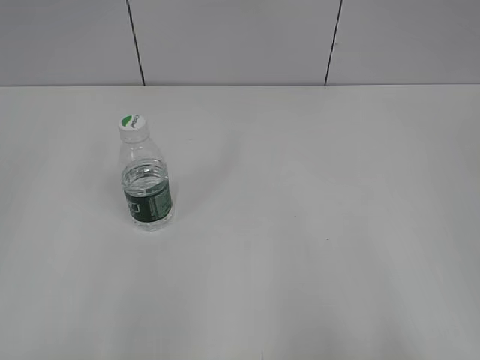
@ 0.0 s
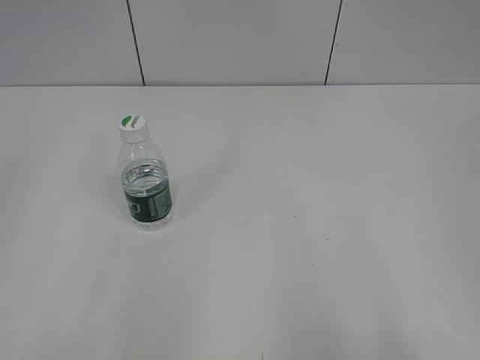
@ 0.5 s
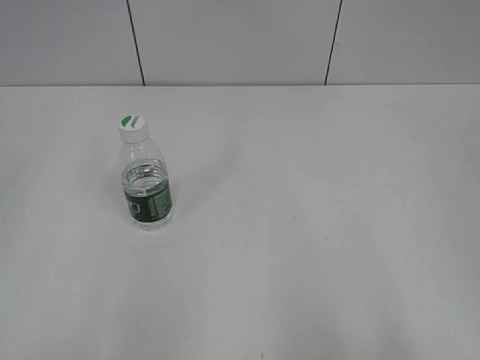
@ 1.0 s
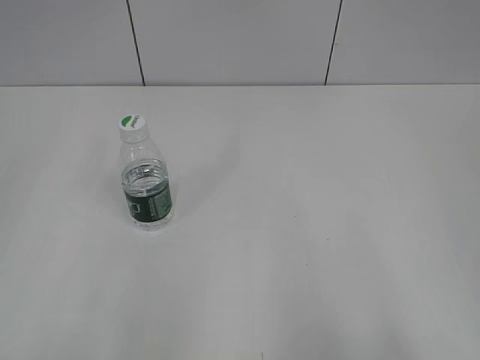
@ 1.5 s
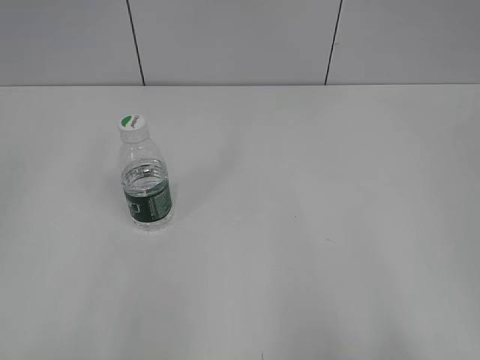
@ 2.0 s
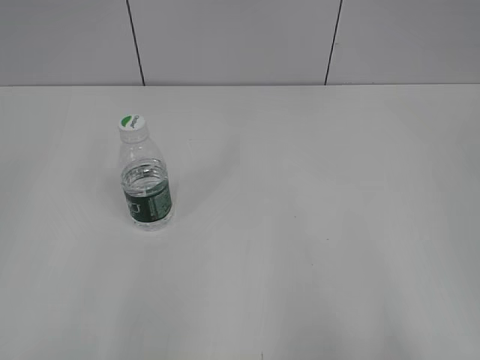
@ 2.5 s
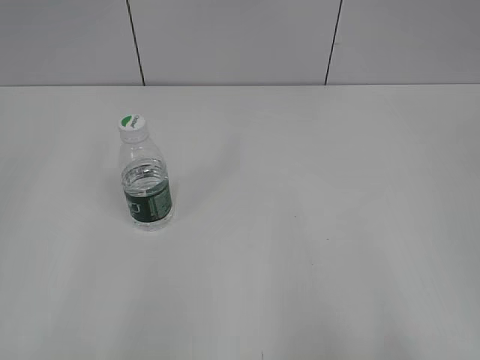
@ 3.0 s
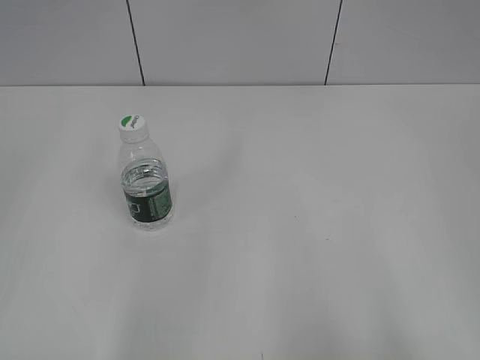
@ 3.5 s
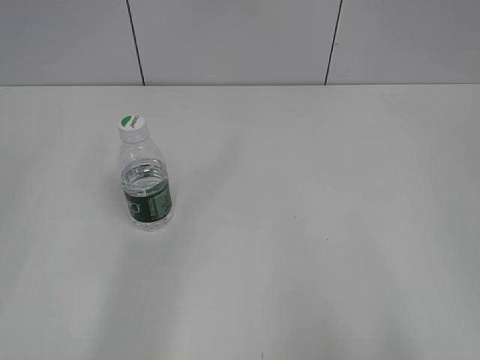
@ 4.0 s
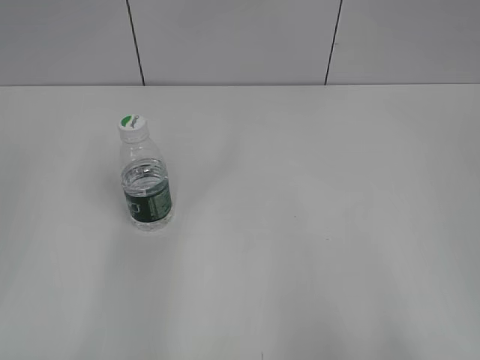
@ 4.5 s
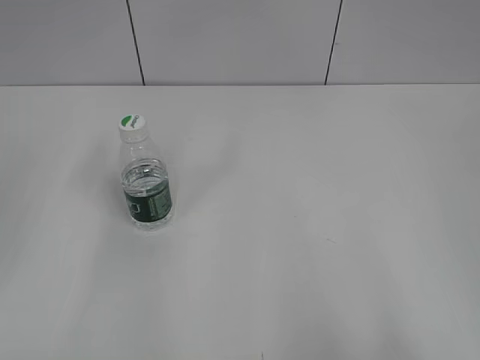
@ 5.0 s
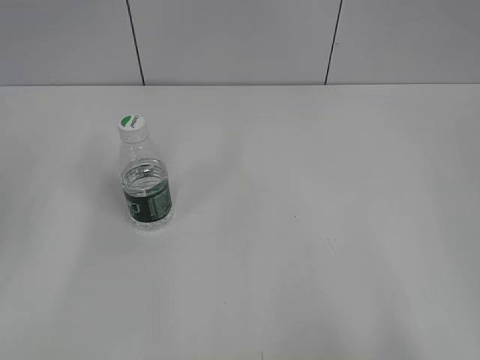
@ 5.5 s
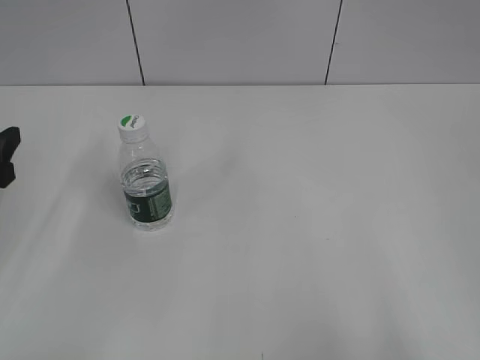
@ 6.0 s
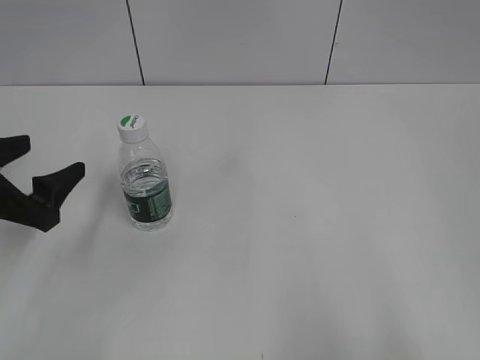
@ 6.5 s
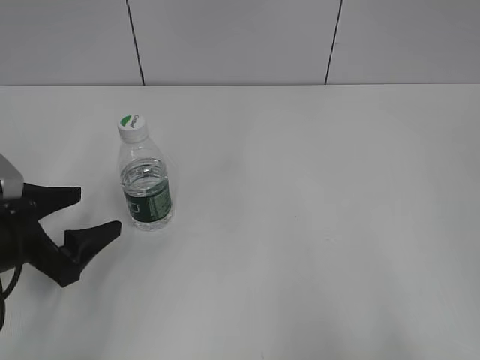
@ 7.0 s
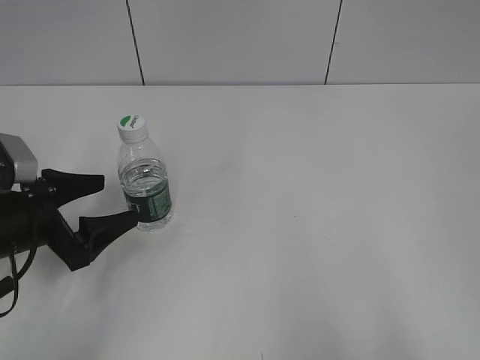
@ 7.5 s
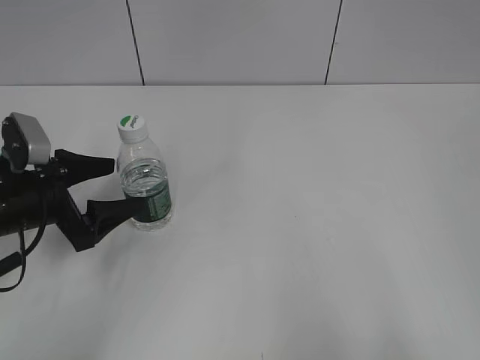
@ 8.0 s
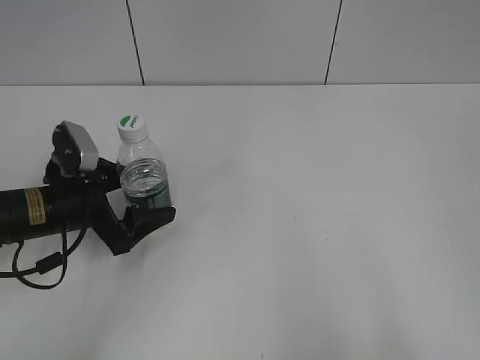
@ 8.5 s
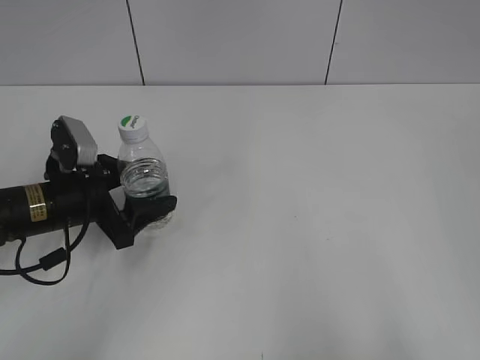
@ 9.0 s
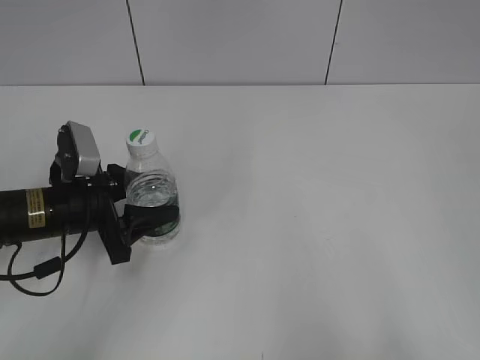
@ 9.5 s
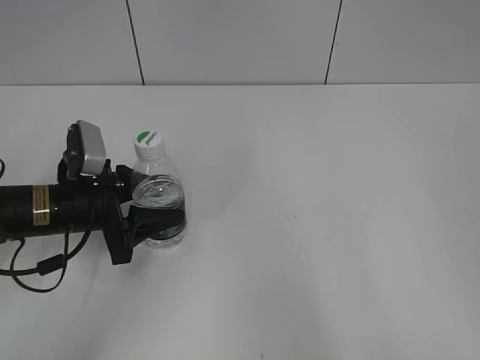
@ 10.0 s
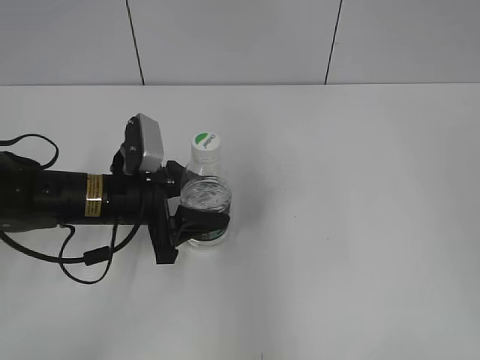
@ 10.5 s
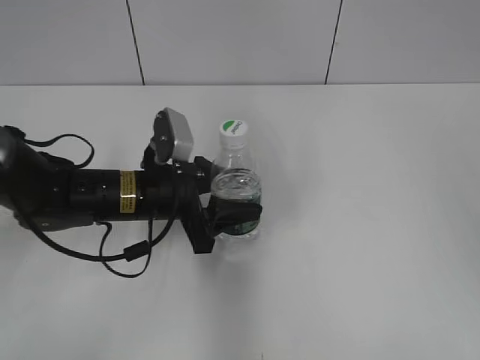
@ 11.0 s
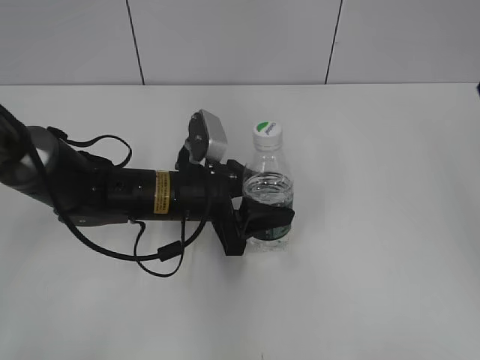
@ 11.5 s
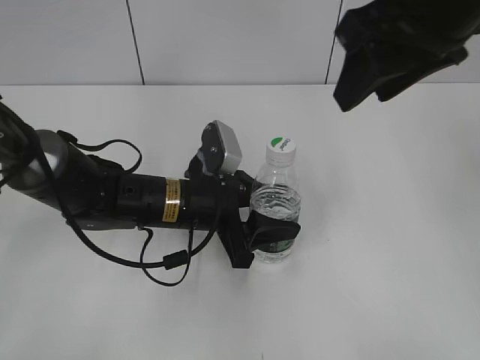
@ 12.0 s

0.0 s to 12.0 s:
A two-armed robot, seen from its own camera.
Step, 0.0 to 9.0 s: Grasp the bottle and move it to the center of the table with the left gripper.
6.0 to 8.0 s: The left gripper shifts some 10 cm downward and to the right.
8.0 to 10.0 s: The left gripper closes up.
10.0 to 12.0 s: The right gripper heads forward and to the left, covering some 30 cm, and closes its fingers; the left gripper is displaced to the right by approximately 15 cm.

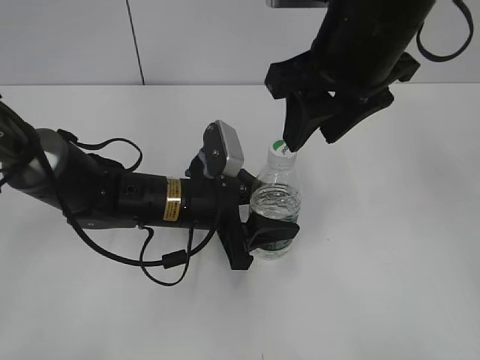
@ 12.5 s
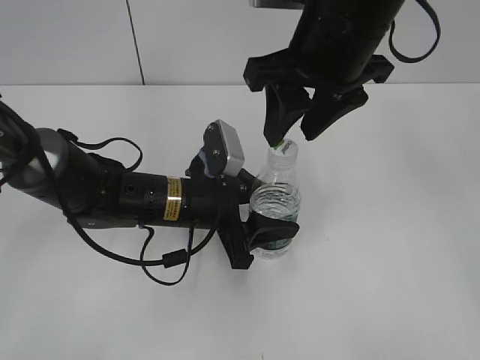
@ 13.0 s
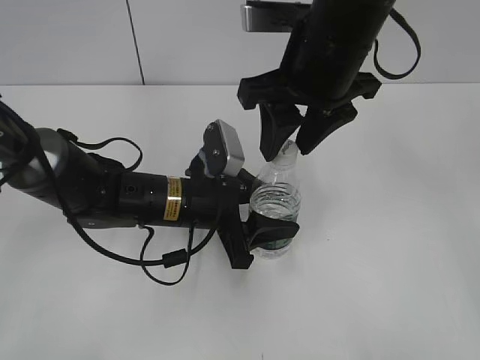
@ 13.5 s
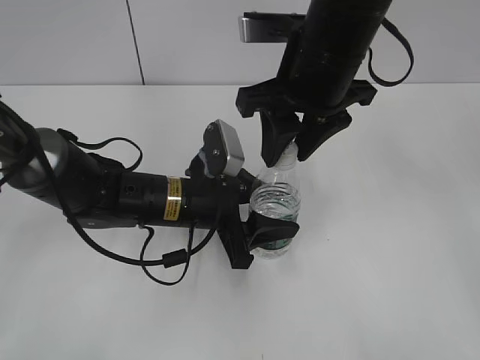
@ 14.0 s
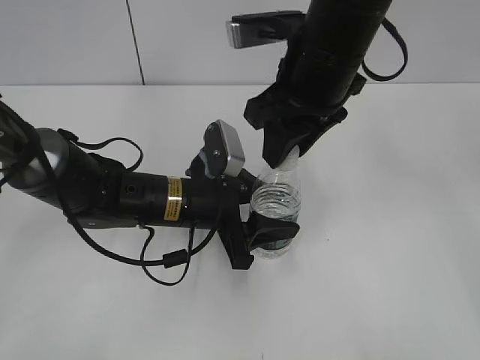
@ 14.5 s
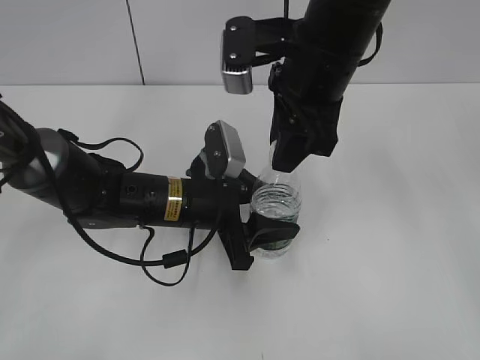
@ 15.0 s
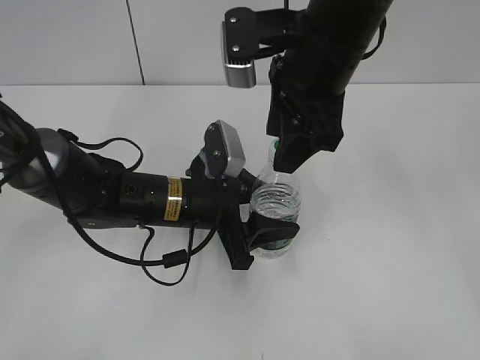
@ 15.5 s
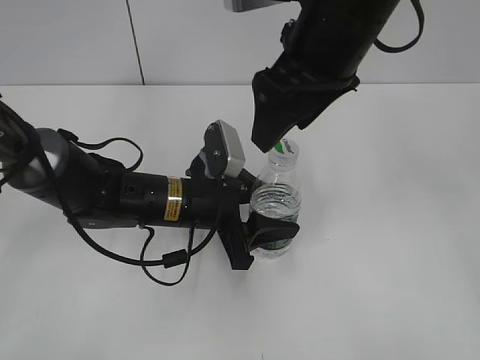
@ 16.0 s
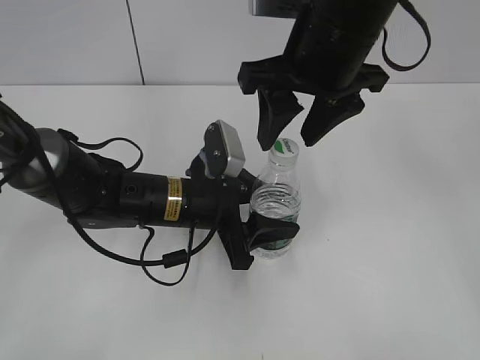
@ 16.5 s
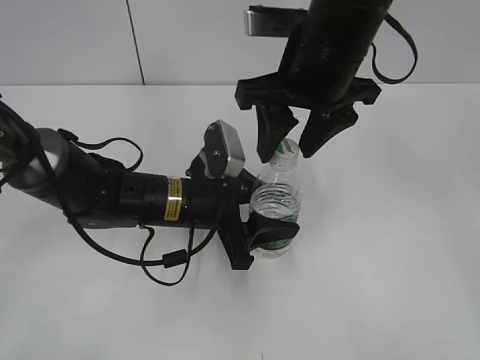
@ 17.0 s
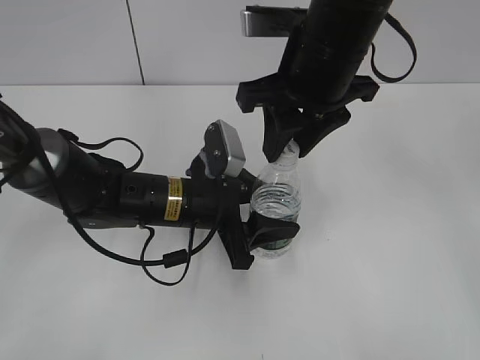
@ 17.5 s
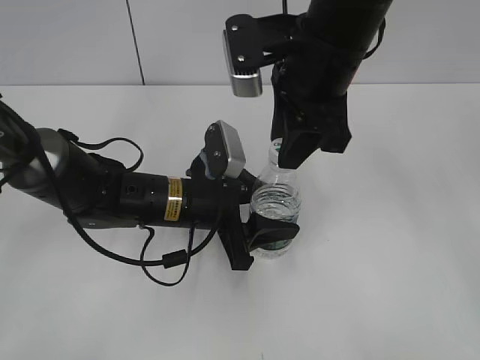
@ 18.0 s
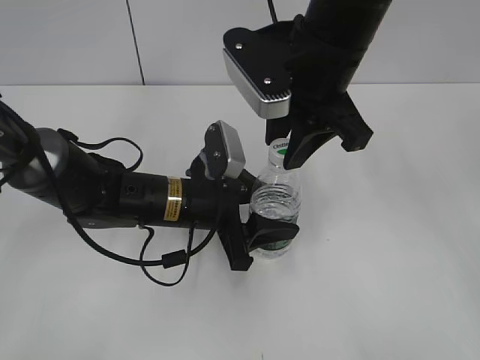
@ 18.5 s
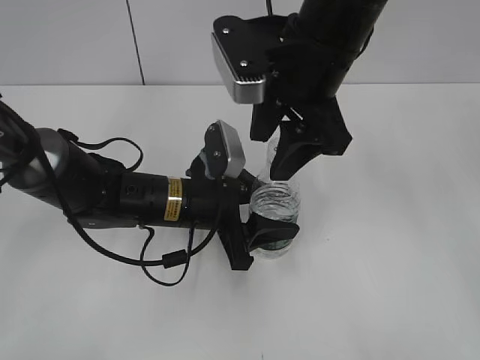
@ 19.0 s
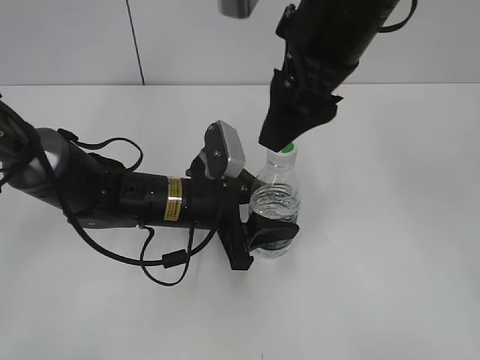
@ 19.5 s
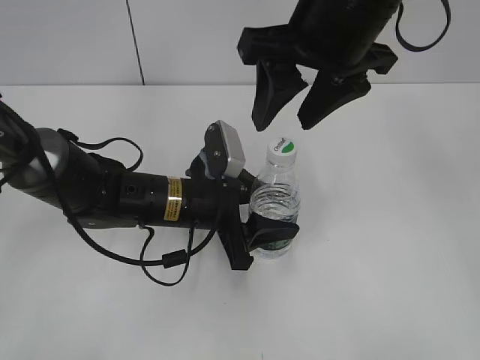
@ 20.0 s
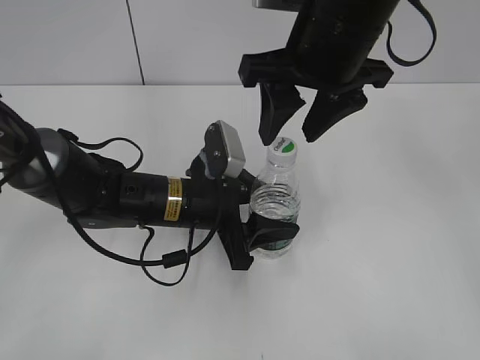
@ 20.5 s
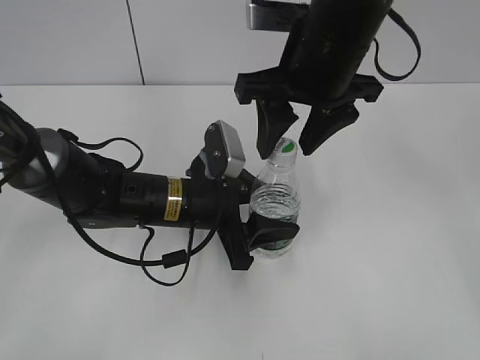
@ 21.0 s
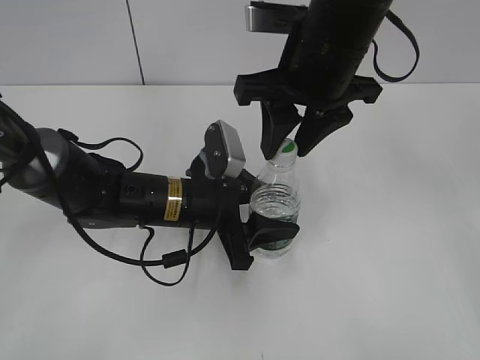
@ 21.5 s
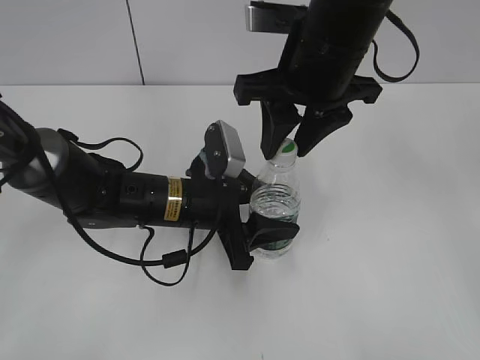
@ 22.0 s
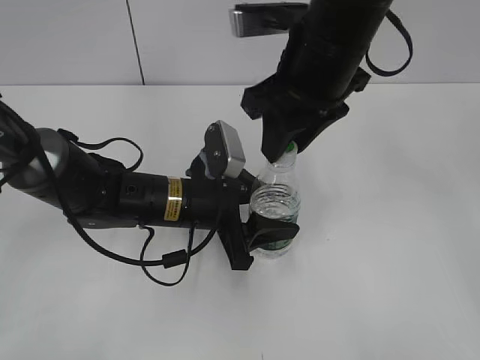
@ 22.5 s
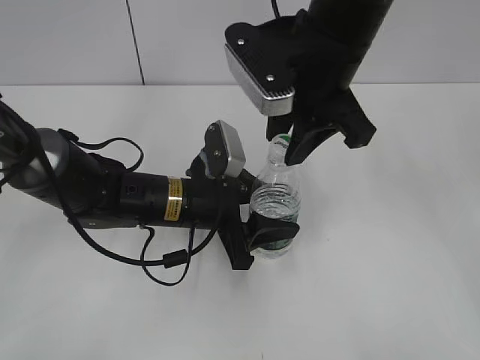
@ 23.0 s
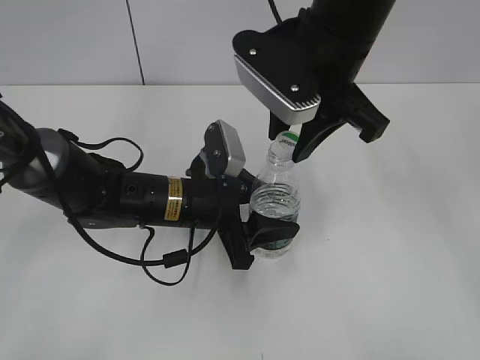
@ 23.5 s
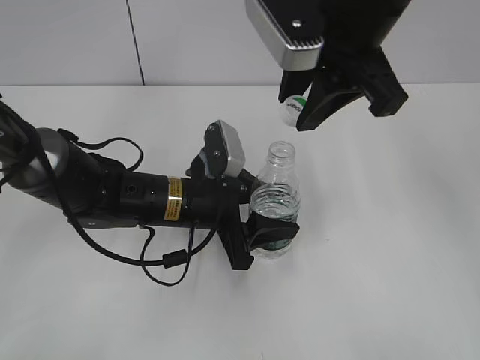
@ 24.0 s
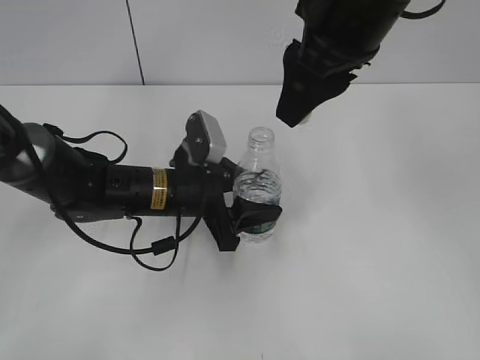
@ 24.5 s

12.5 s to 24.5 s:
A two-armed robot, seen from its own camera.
Step, 12.5 to 24.0 s: Unscrew the bottle cap with the right gripper while holding the bottle with the left gripper.
12.5 to 14.5 s: The right gripper shifts by some 5 cm.
14.5 to 16.5 s: The right gripper opens its fingers.
16.5 to 18.5 s: The right gripper closes.
18.5 to 20.5 s: The right gripper opens its fingers.
20.5 to 22.5 s: The right gripper closes.
22.5 to 24.5 s: The right gripper travels upward by roughly 5 cm.

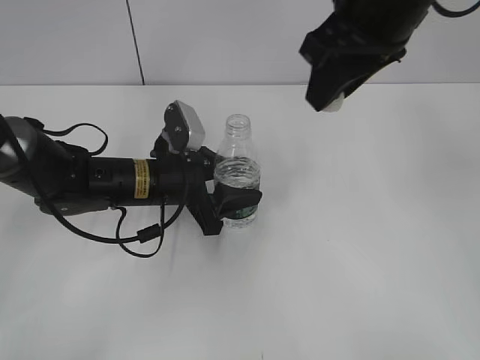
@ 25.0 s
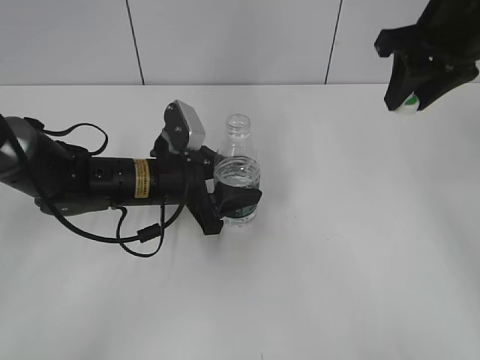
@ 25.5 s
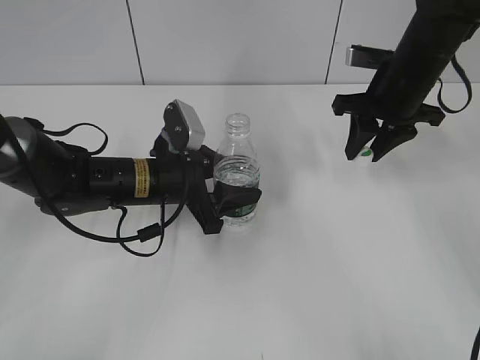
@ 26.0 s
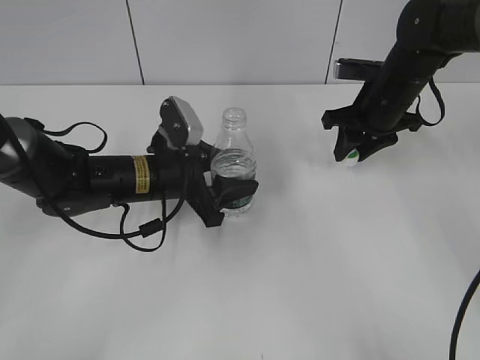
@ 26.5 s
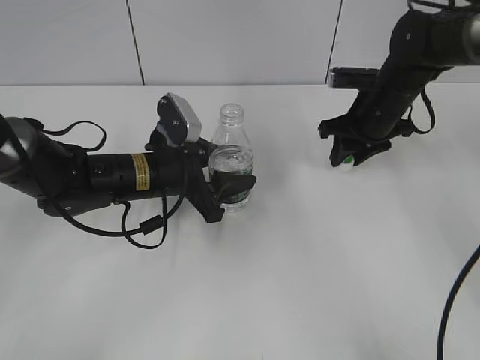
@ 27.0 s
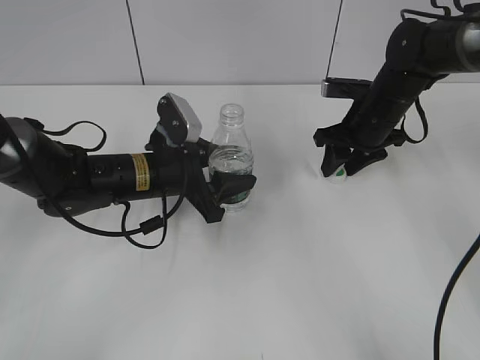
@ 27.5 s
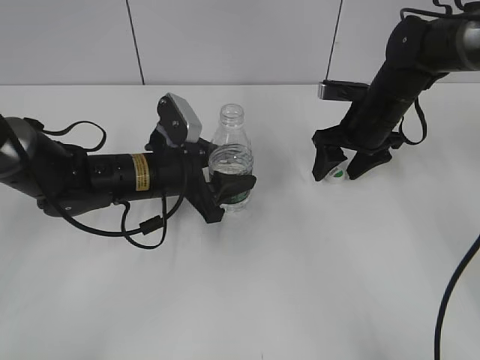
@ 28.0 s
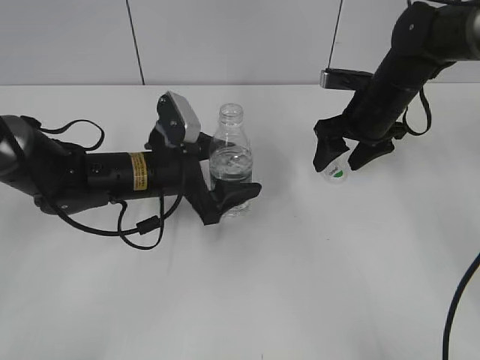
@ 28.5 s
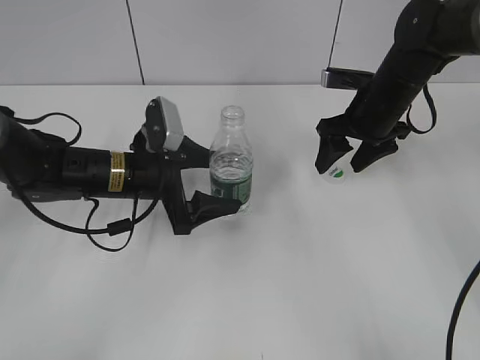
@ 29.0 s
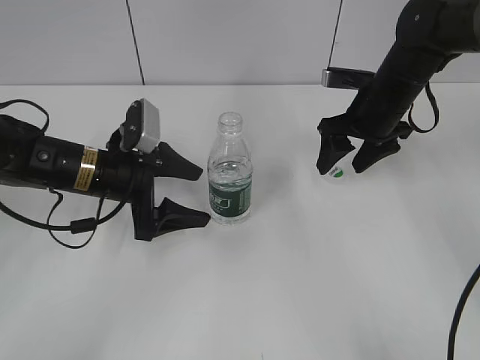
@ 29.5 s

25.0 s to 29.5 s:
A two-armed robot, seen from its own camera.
Step, 25.0 to 27.5 s: Place the bottle cap on the table with the right gripper.
25.0 to 27.0 s: The right gripper shifts some 25 cm downward and forward.
27.0 to 29.5 s: The left gripper shifts about 5 cm to the left, and opens its fingers. The right gripper opens its fingers.
